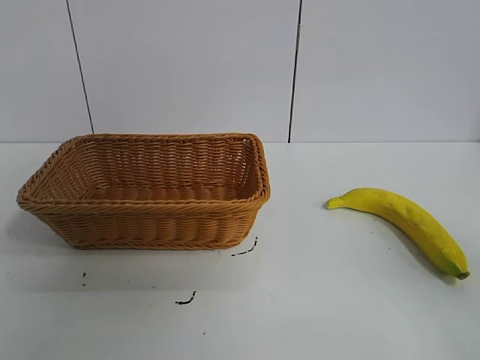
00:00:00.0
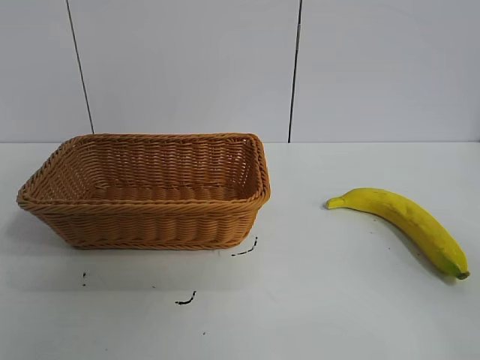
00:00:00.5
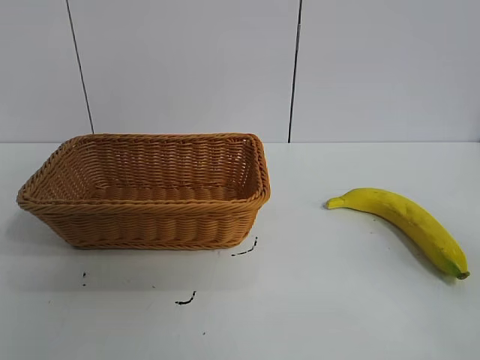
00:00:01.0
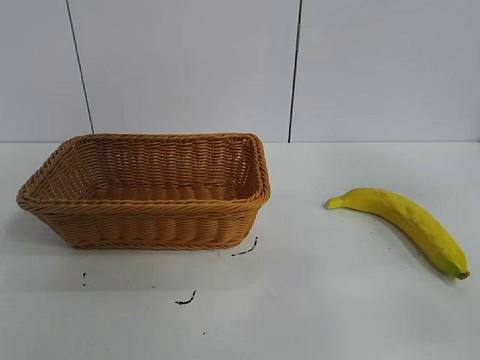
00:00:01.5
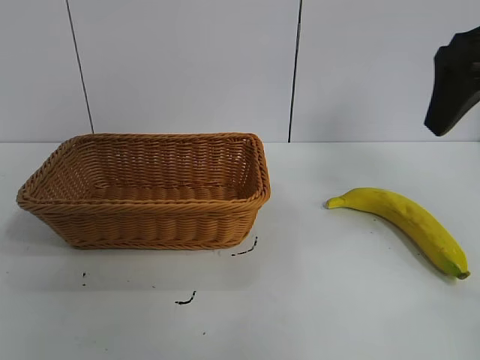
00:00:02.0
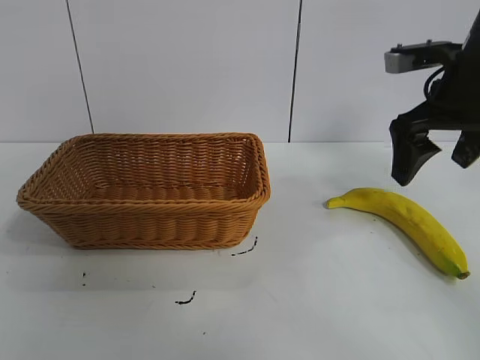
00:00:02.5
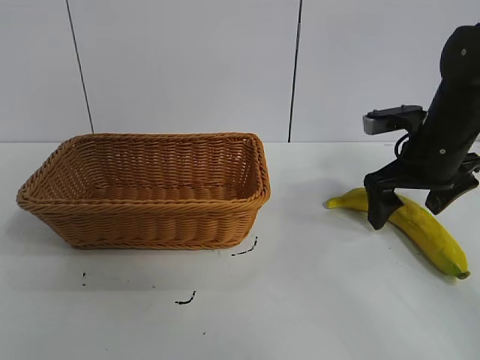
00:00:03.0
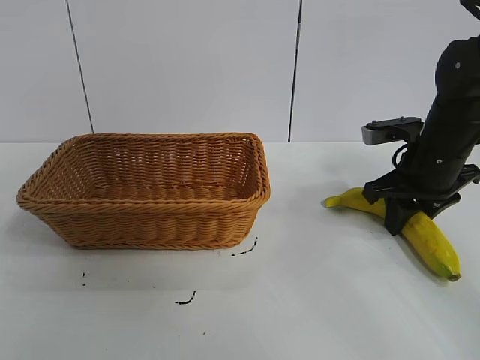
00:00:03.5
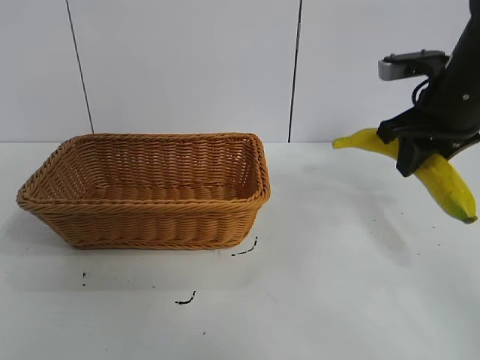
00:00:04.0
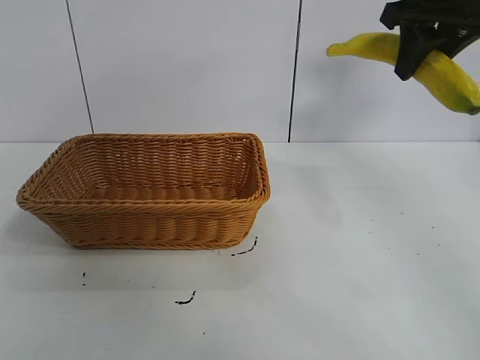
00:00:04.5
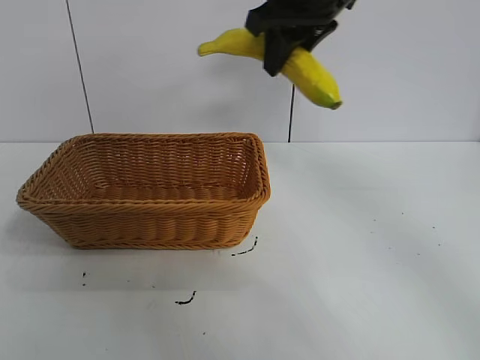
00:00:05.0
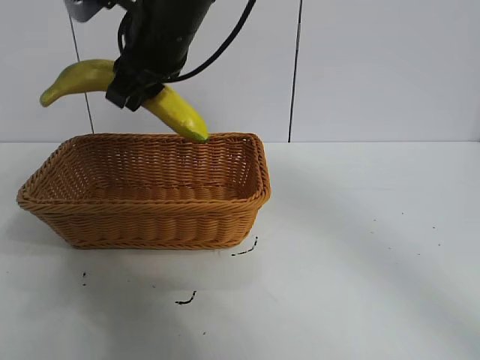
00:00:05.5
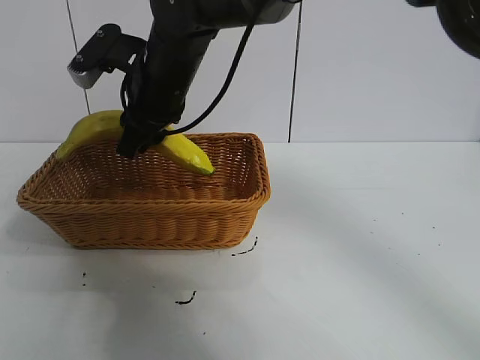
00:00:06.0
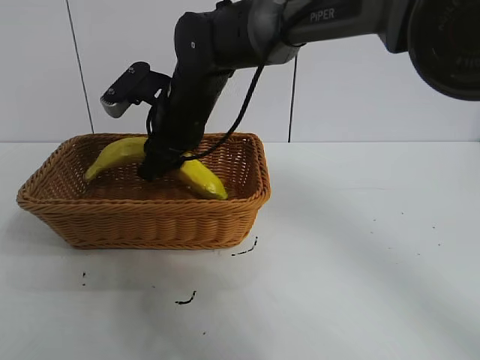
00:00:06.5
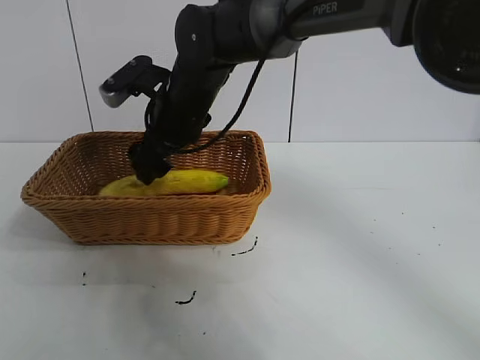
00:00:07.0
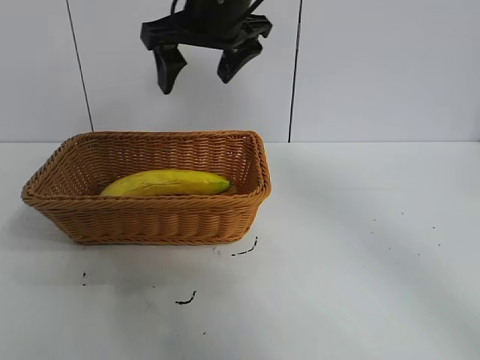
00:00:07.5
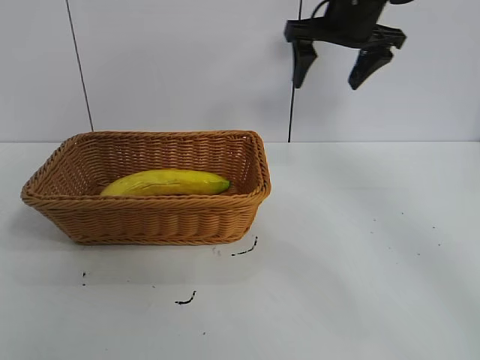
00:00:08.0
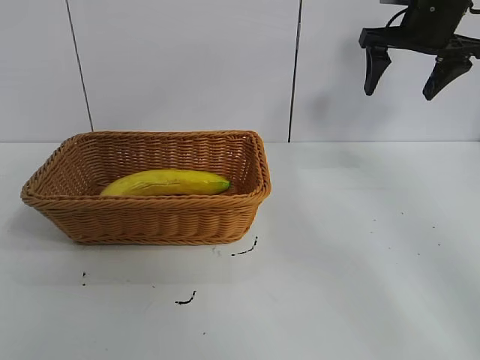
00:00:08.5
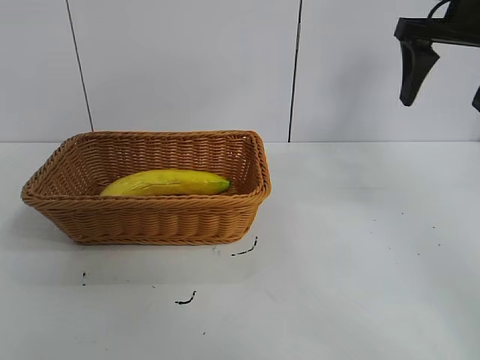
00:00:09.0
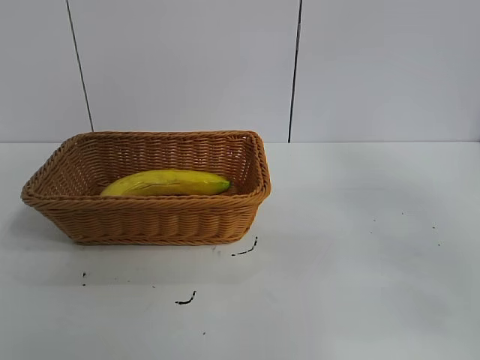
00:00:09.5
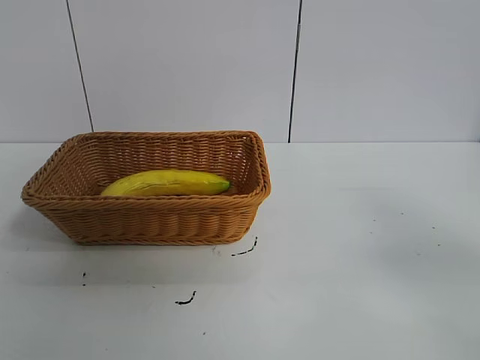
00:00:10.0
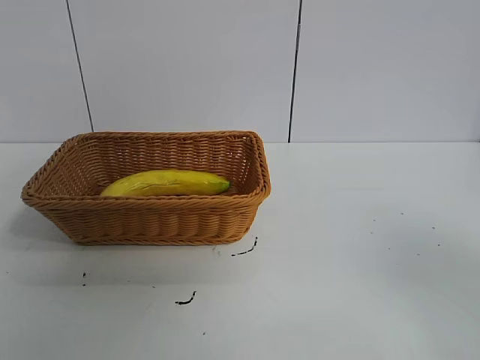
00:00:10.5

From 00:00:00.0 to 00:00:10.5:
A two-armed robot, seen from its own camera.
Task of the whole recording: pick up the banana and put it into the basket.
Step, from 00:00:01.0 to 00:00:03.0: Grasp the banana with right gripper.
Step, from 00:00:04.0 to 00:00:07.0: Place the banana in the basket with right gripper.
